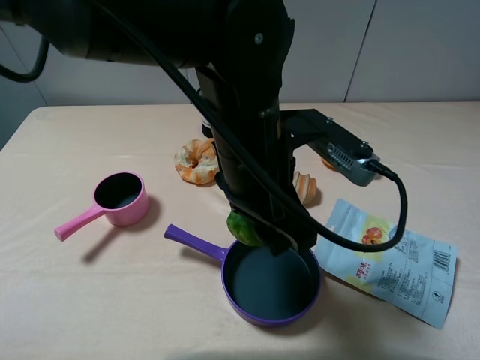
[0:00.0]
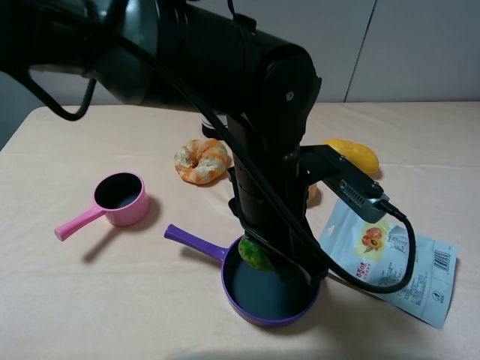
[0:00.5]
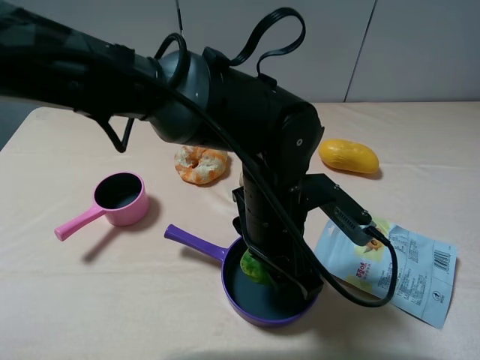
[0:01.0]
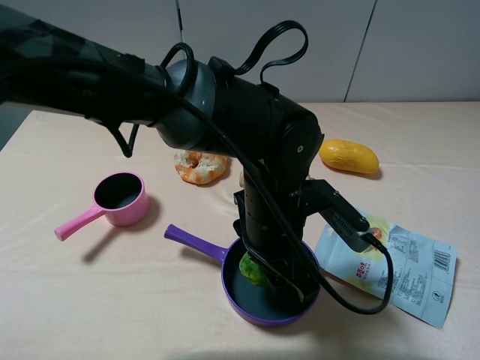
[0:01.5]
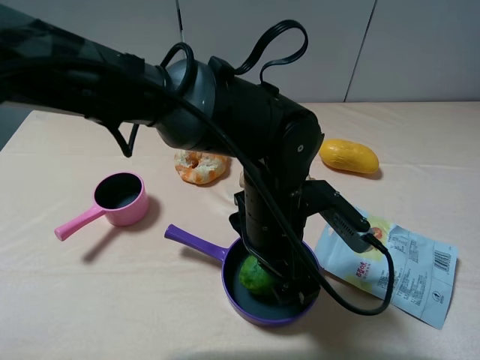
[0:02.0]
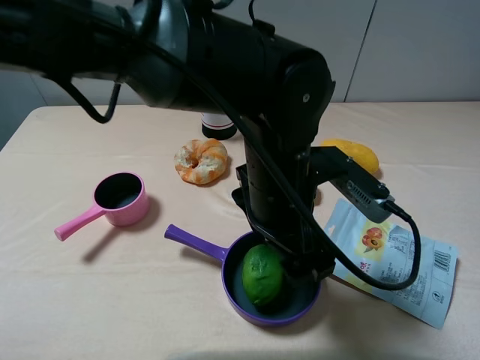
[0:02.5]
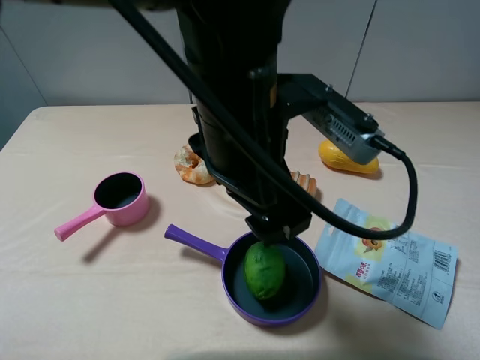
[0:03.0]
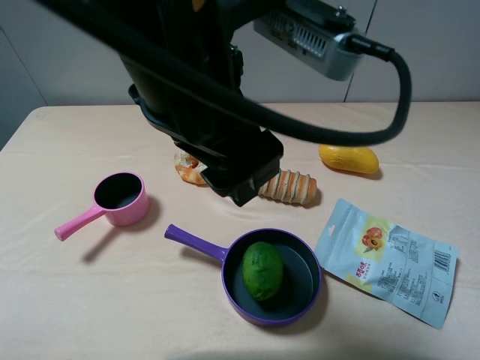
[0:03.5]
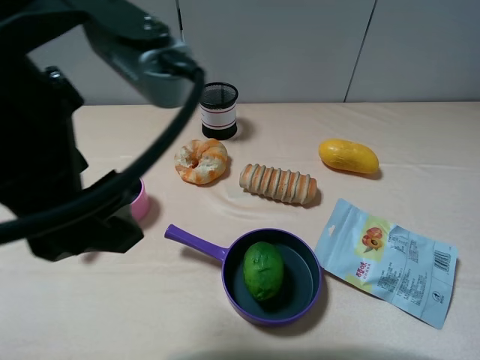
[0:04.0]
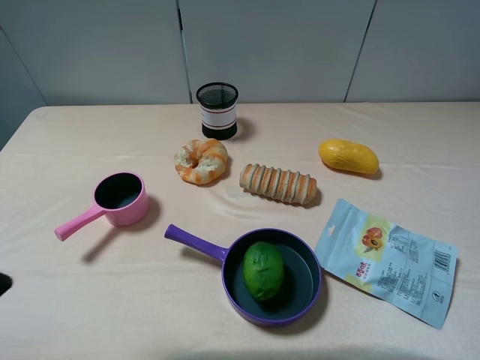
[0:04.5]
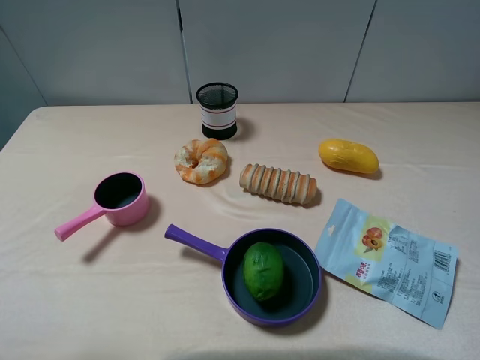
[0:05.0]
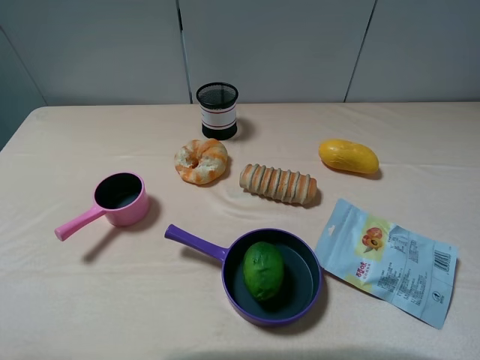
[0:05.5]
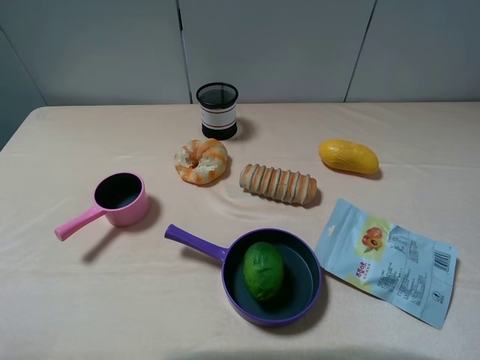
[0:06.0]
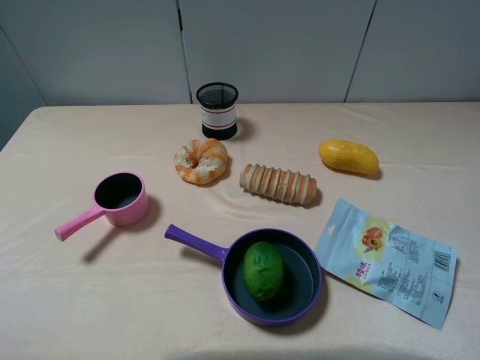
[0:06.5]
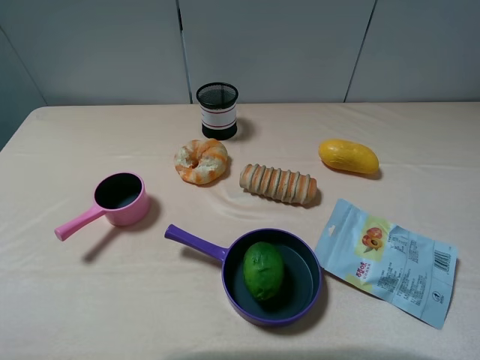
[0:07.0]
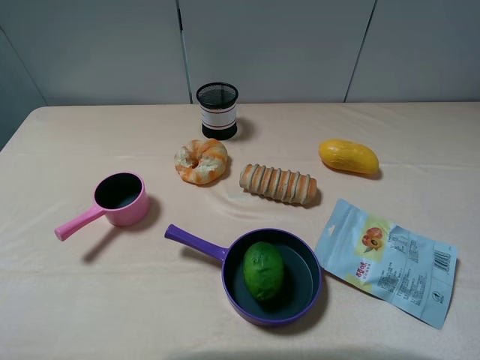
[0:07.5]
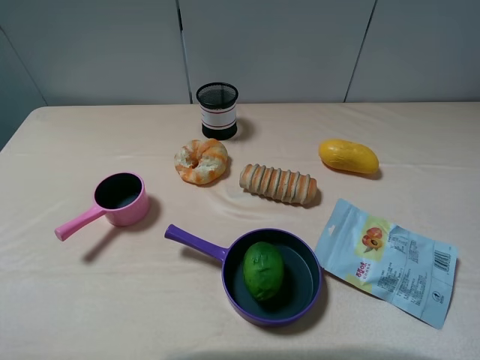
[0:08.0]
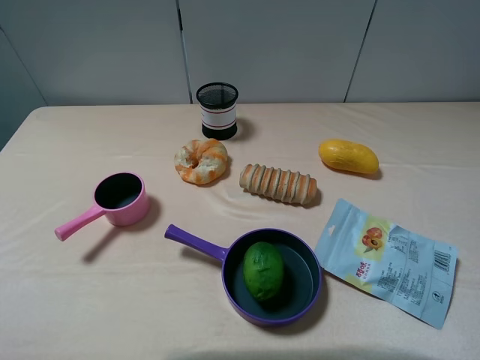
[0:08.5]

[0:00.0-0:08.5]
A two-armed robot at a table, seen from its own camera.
Task of the whole recording: pick up an item with a gripper and place it in a random container on the table.
Step, 0:00.0 to 0:03.0: Place the green lemon into the purple pot with the left gripper.
0:00.0 to 0:02.0: The left gripper goes some 10 cm downward, and opens.
0:02.0 to 0:04.0: The left gripper heads upward and to the left, covering roughly 25 cm.
0:04.0 to 0:06.5: The left gripper is displaced to the left and backward by approximately 25 cm.
0:06.5 to 0:08.5: Both grippers stay put.
